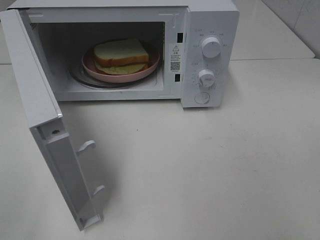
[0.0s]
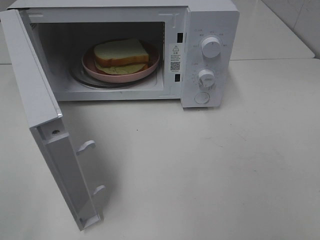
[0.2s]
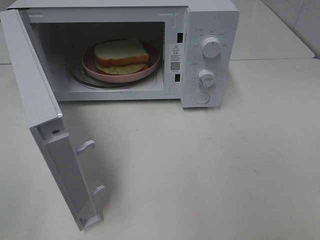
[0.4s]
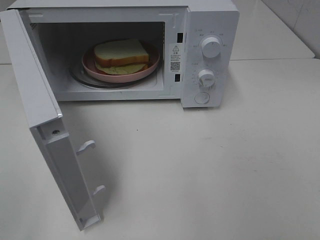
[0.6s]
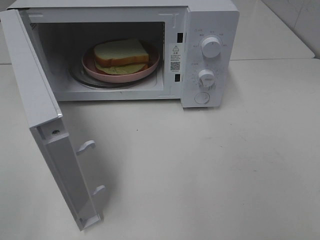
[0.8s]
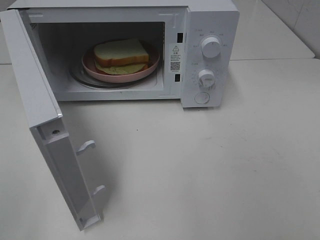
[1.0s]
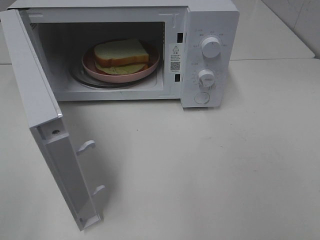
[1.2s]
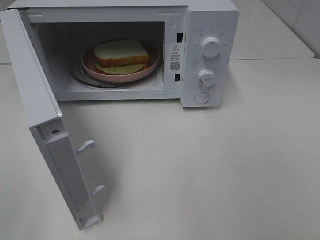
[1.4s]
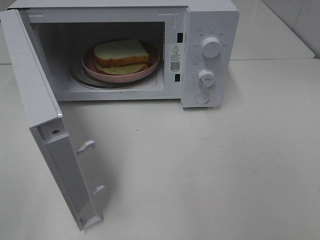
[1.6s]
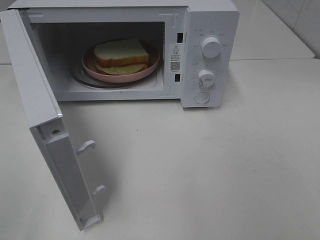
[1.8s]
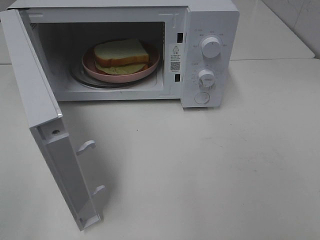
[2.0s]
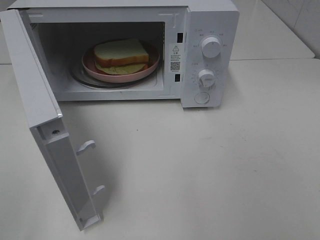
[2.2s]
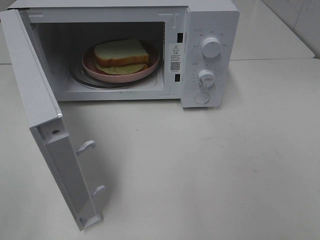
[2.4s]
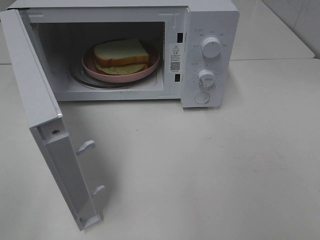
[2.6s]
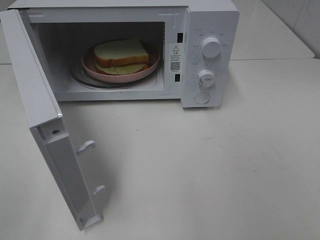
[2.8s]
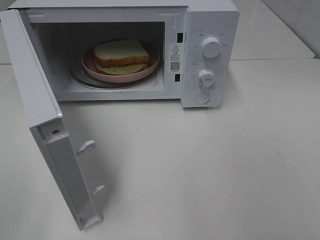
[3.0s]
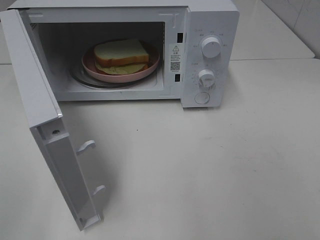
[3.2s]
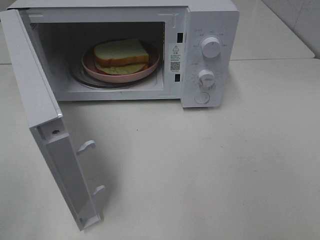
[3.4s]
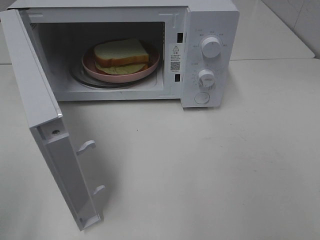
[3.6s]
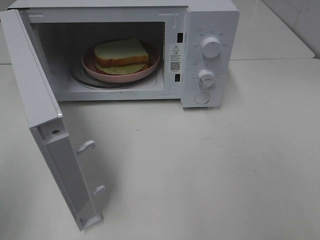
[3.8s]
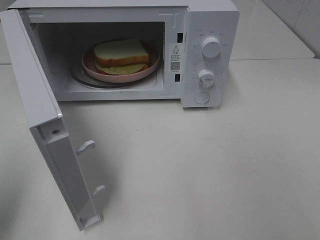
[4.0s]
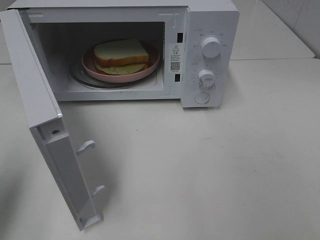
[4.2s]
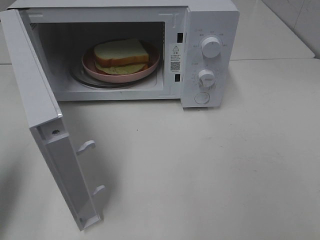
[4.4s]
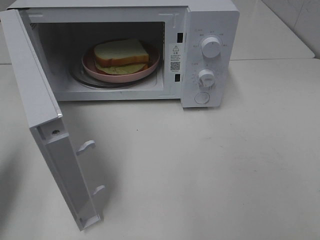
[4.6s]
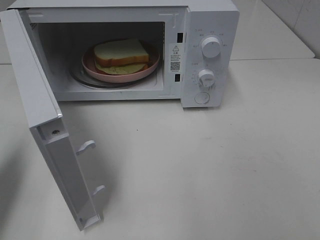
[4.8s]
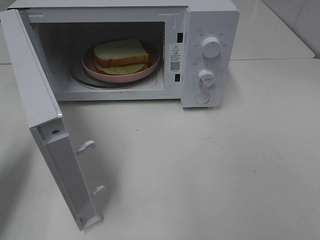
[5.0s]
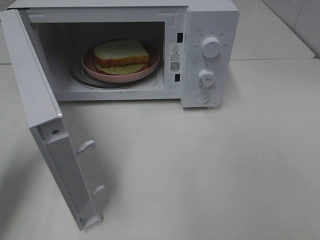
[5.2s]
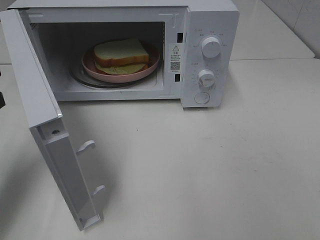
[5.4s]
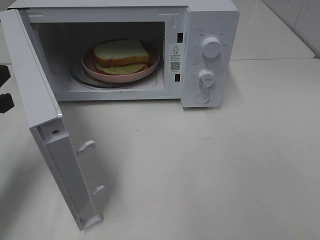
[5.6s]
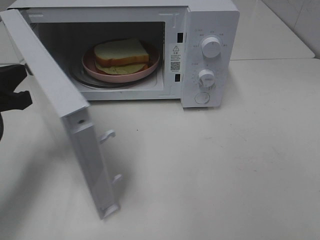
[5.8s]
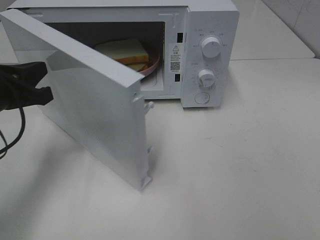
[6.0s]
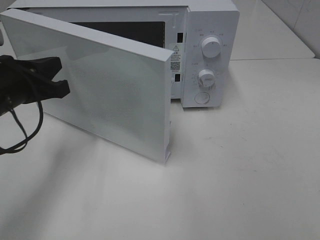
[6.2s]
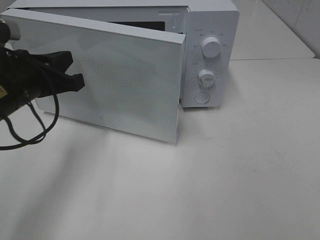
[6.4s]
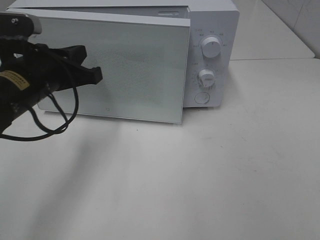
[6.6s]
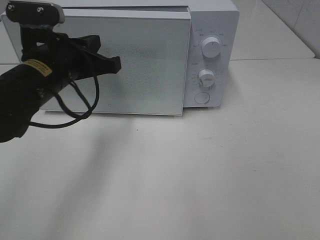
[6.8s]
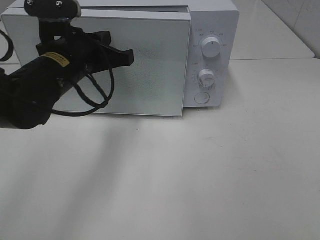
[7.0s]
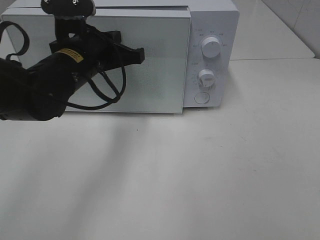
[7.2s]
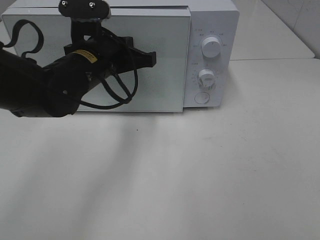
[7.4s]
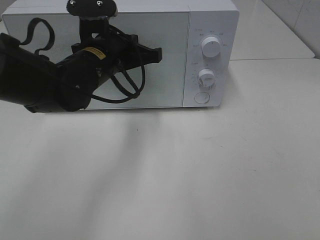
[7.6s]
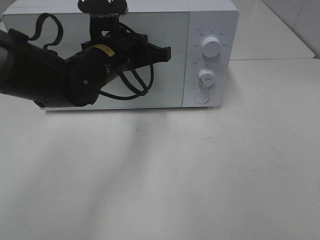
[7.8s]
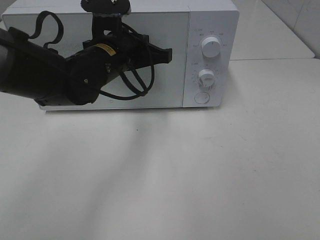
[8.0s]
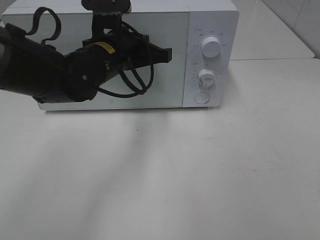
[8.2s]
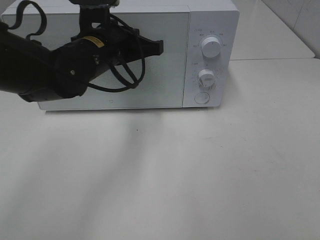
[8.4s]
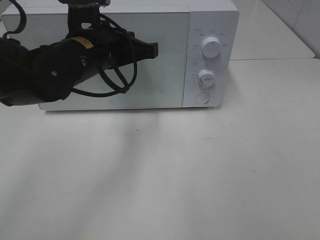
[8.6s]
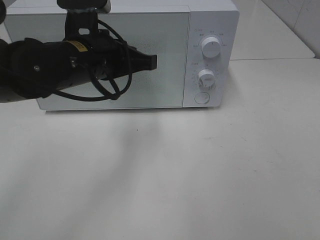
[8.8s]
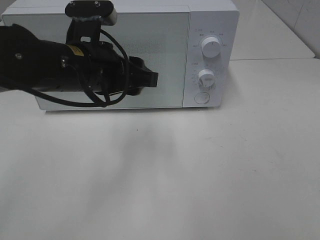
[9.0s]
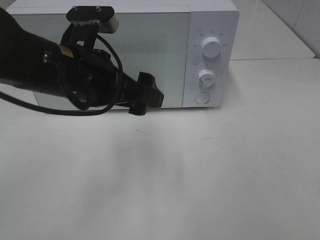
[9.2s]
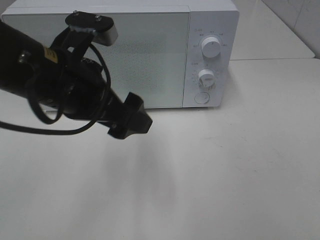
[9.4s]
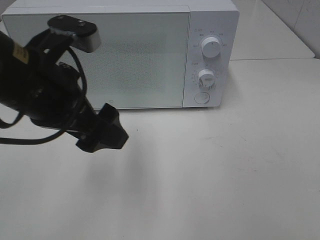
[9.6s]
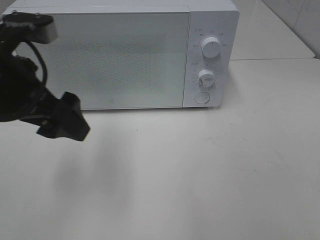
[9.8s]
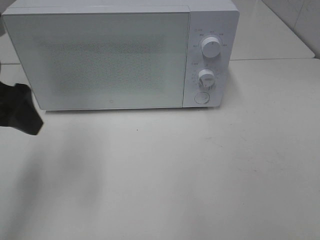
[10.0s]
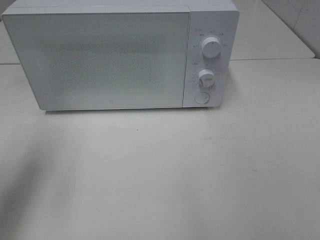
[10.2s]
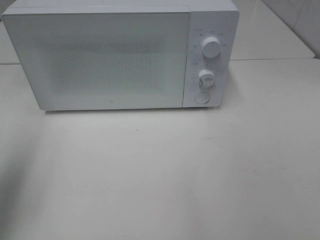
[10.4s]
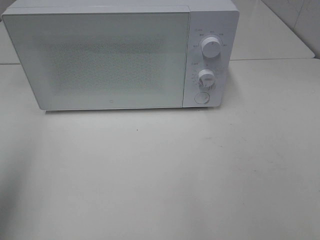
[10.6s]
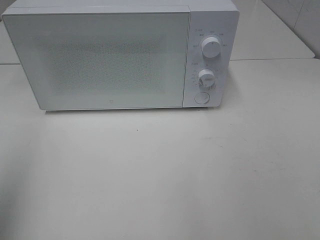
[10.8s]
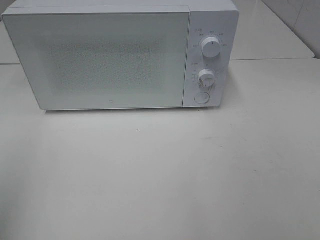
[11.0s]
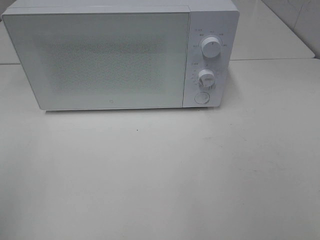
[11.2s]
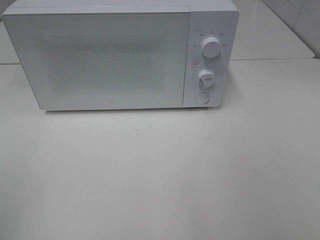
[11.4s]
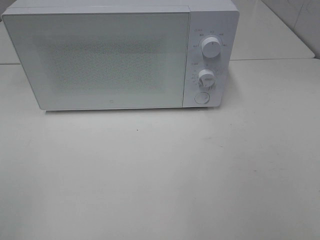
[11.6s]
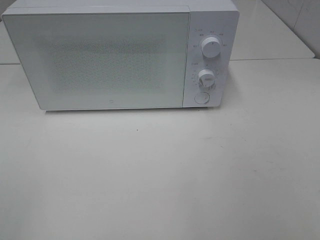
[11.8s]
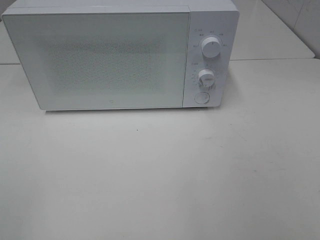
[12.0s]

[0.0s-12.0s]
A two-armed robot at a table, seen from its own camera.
Task of the whole recording: Heat Sandwich.
Step, 0.0s to 8.6s: Left hand: close the microwave door.
1.6s to 3.0s: Neither gripper changes place.
3.0s to 4.4s: The left gripper travels forward by approximately 15 cm, and closes up.
4.4s to 6.0s: The left gripper heads forward, to the right and downward, covering about 15 cm.
6.0s to 7.6s: The left gripper is displaced to the right and forward by approximately 20 cm.
7.6s to 9.0s: The left gripper travels backward by roughly 5 cm, and opens.
9.0s to 10.4s: The left gripper is displaced to the left by approximately 25 cm.
10.4s to 12.0s: The left gripper heads backward, covering about 20 cm.

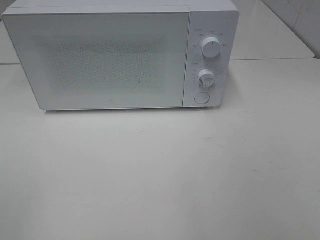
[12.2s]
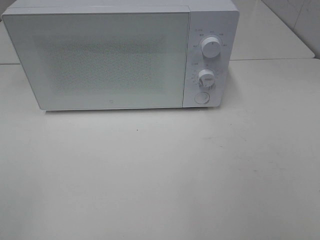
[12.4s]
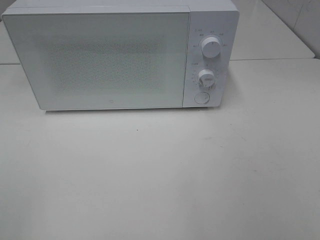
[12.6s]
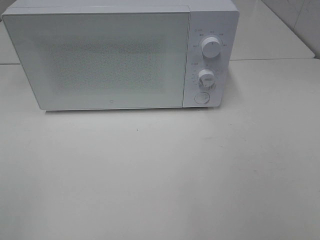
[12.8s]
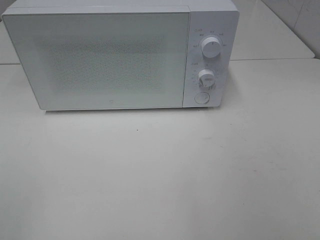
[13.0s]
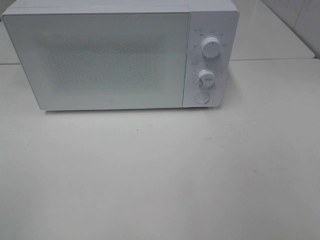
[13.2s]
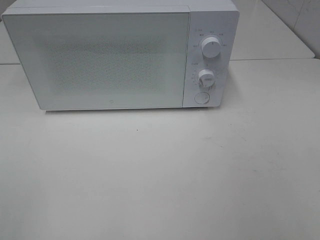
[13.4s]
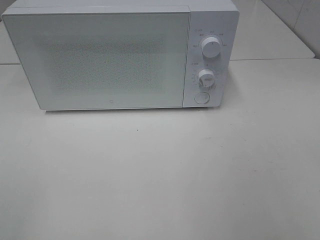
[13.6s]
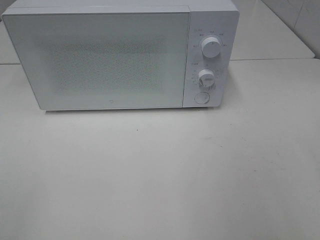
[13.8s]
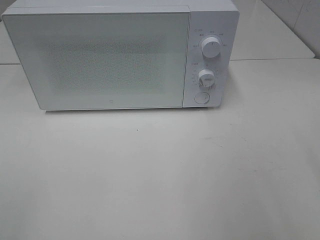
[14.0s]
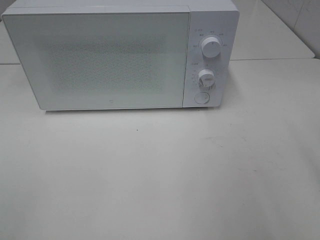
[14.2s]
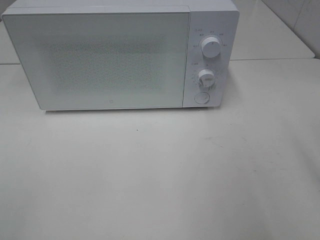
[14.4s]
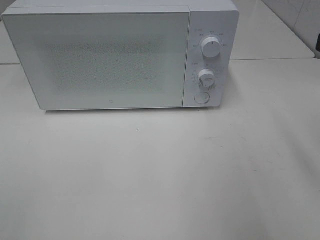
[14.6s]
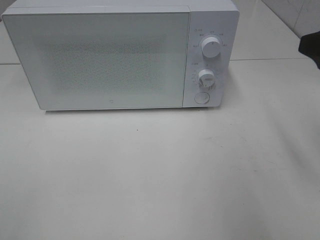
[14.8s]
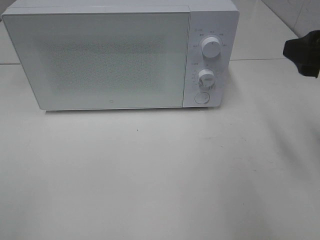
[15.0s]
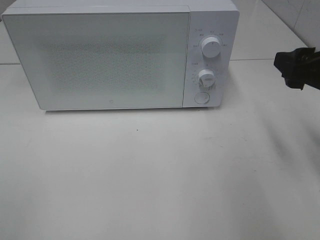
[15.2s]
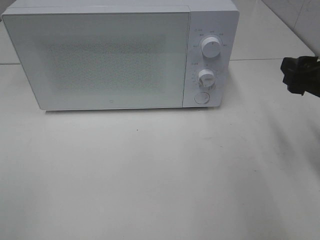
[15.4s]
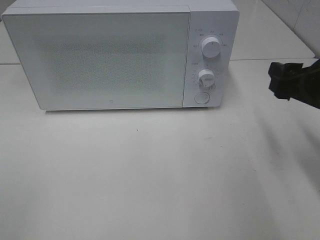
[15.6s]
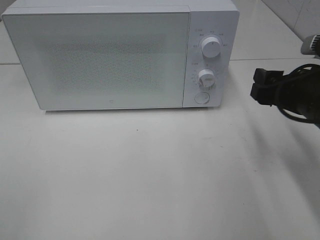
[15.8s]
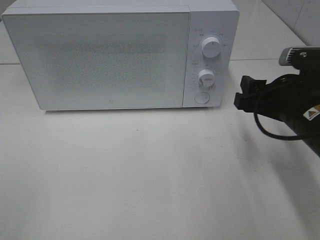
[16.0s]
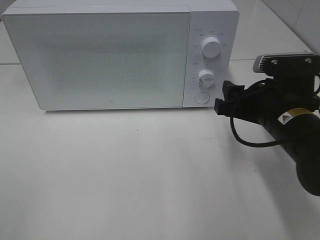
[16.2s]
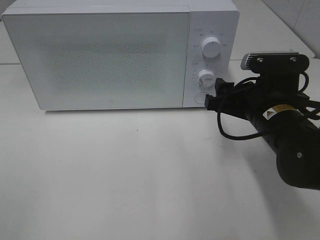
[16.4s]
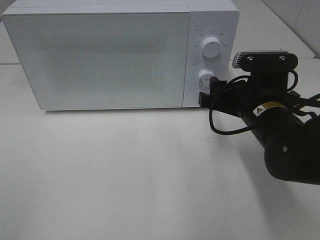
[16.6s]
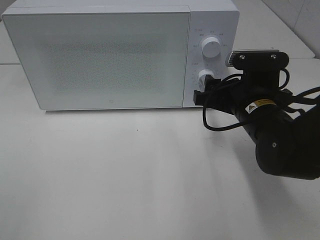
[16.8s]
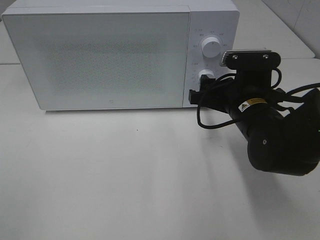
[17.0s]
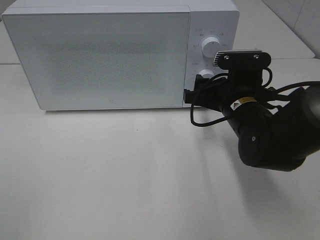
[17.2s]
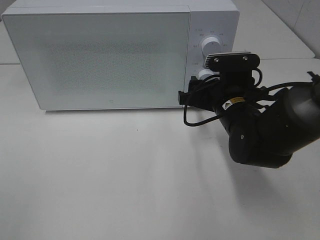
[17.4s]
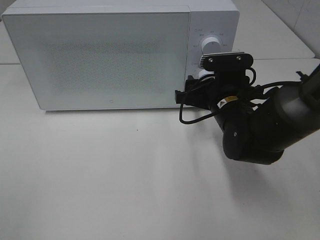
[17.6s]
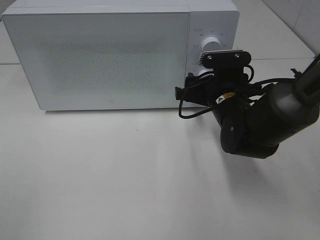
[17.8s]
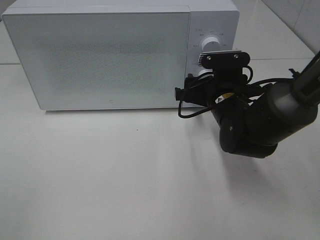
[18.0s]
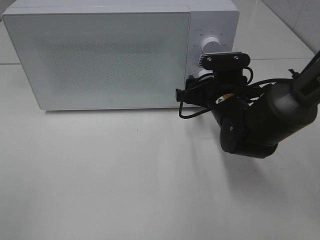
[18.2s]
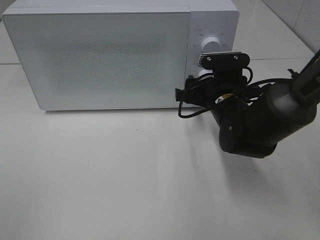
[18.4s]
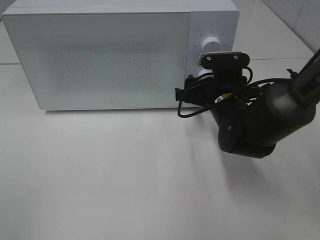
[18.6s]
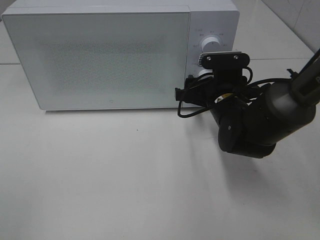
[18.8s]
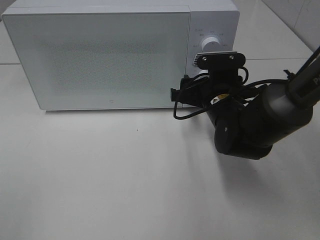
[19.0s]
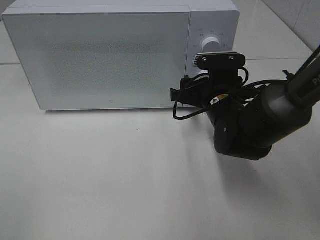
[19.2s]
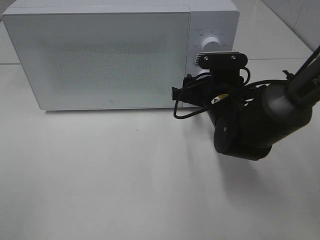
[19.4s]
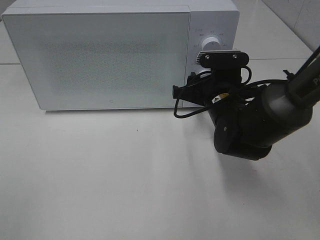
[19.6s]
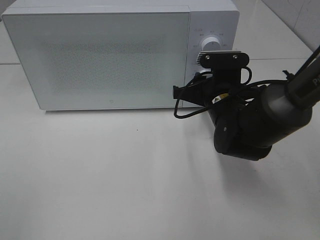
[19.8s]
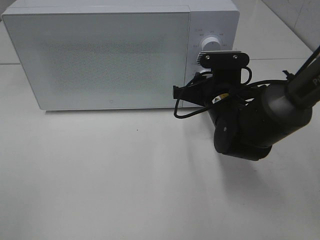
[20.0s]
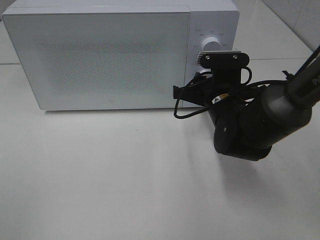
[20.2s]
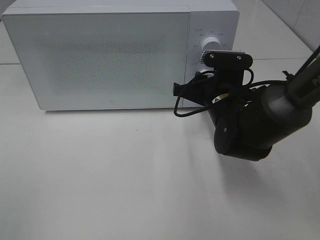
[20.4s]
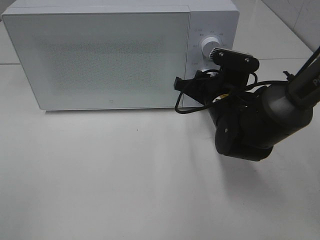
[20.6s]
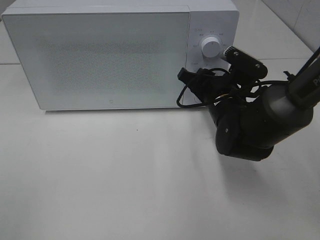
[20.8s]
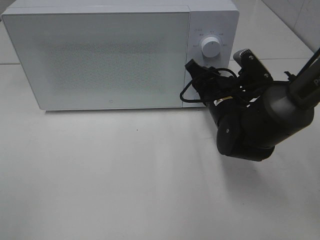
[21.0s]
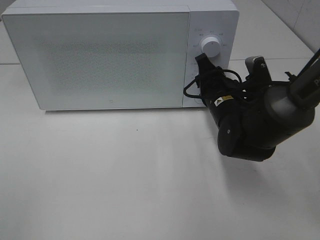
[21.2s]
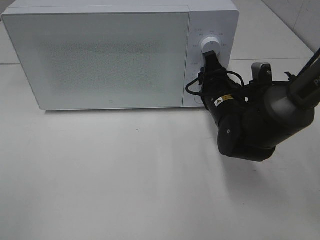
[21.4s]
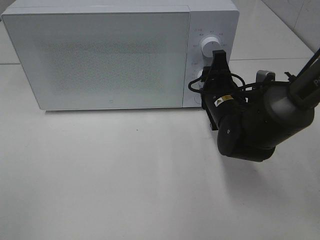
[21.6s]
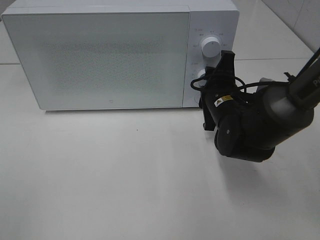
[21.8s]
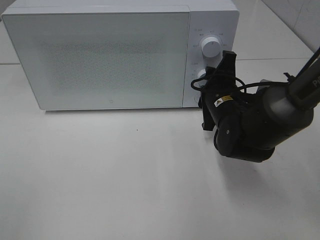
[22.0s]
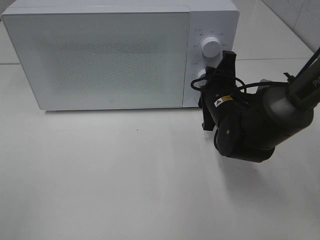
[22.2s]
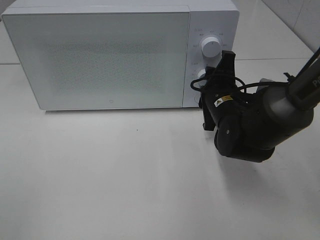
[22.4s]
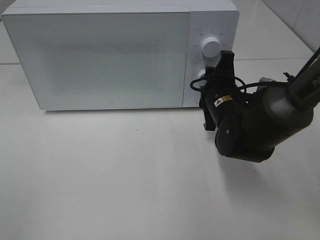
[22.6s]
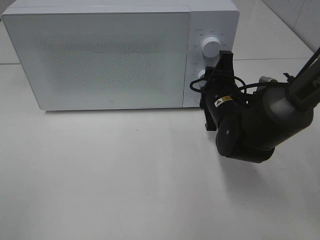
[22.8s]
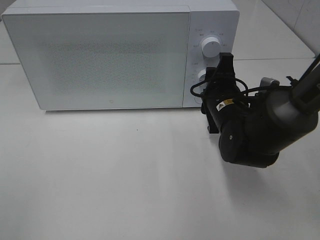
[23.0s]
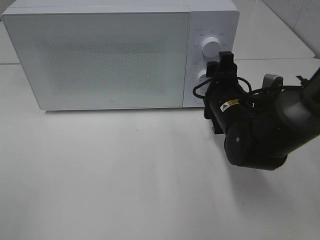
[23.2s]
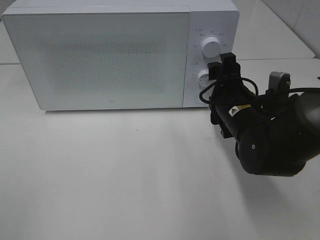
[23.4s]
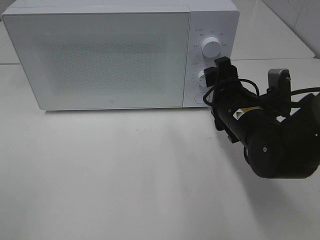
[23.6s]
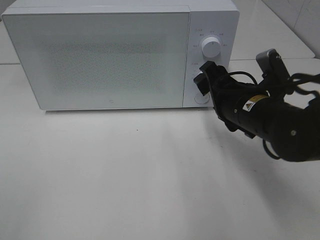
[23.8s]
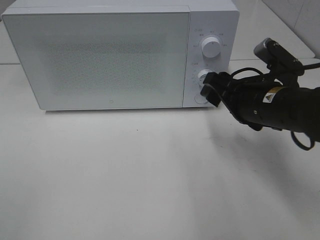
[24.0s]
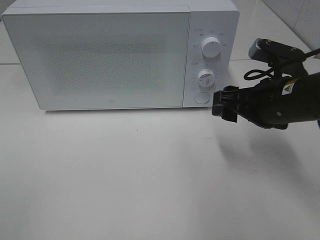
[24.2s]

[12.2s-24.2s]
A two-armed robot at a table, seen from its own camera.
Task of the whole recording: Heat Sandwich.
Step, 12.2s to 23.8s: Right hand: twist timer button.
13.8s to 15.2s: The right gripper heads forward and downward, covering about 15 cm.
15.2s to 16.6s: The right gripper is displaced to the left and downward by roughly 15 cm.
16.6s to 18.2s: The right gripper moves forward, about 5 cm.
18.2s to 19.8s: The right gripper closes up.
22.6s to 24.2s: The right gripper travels upward, backward and to the right by some 10 cm, and opens up.
